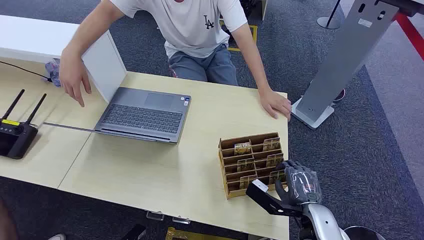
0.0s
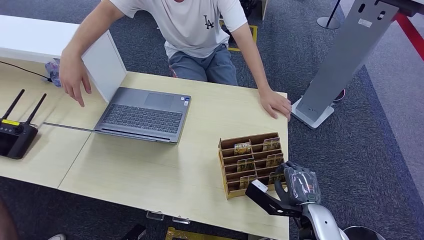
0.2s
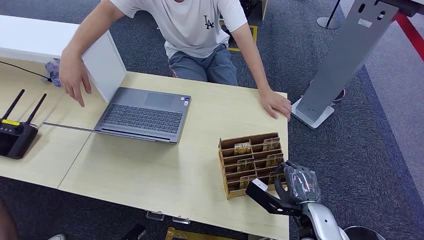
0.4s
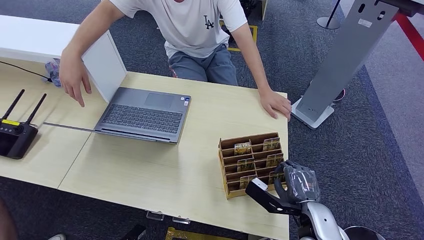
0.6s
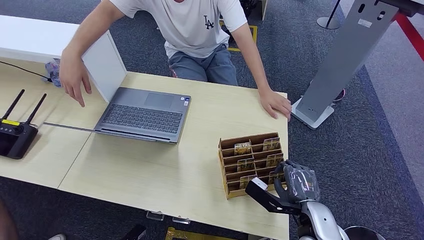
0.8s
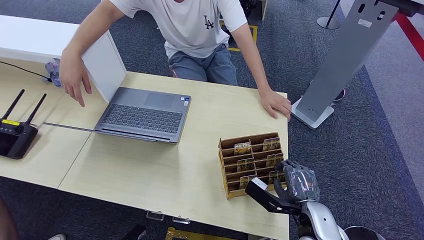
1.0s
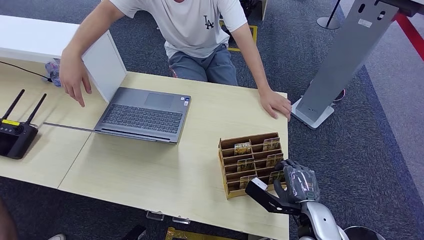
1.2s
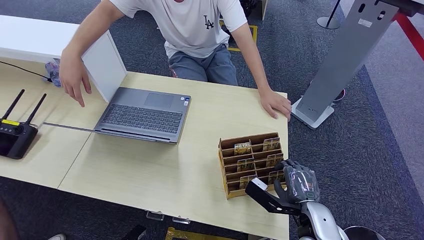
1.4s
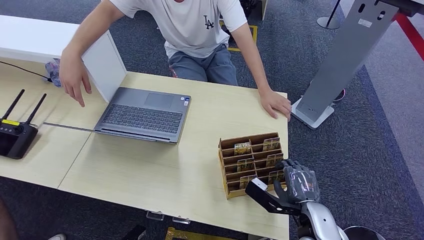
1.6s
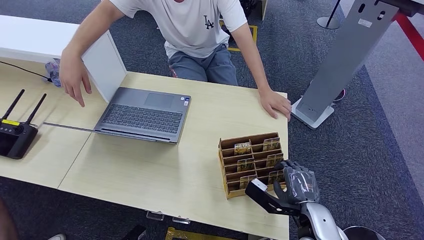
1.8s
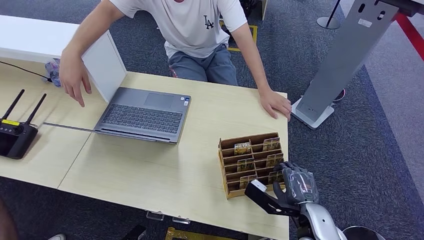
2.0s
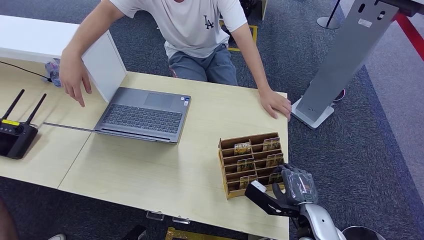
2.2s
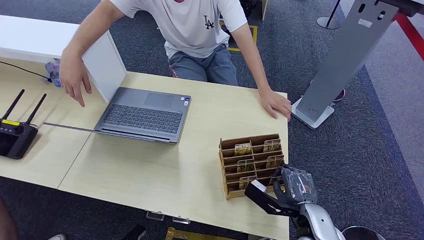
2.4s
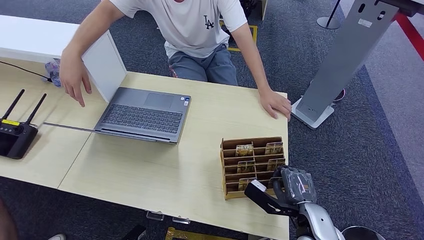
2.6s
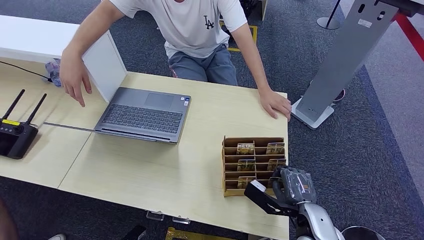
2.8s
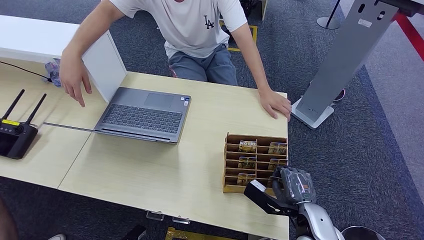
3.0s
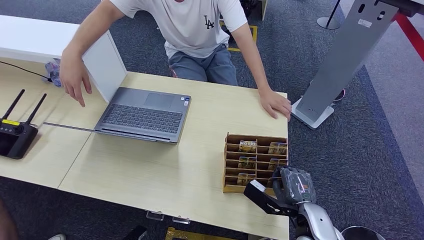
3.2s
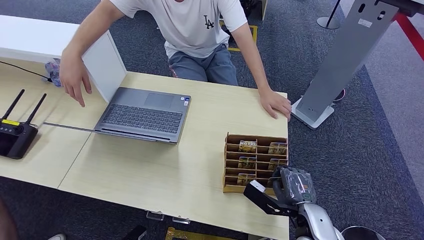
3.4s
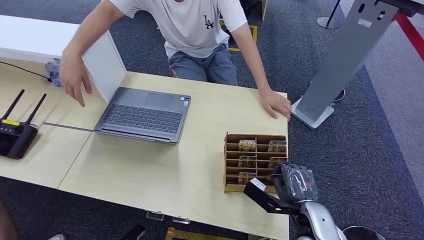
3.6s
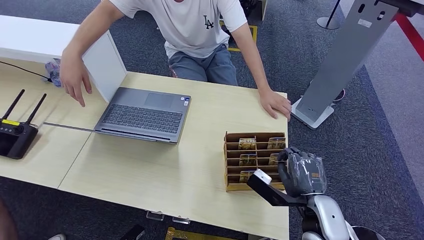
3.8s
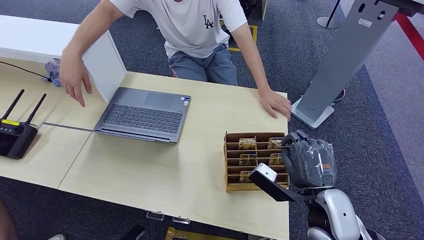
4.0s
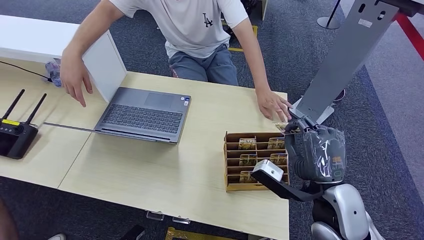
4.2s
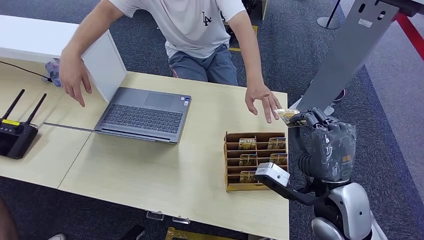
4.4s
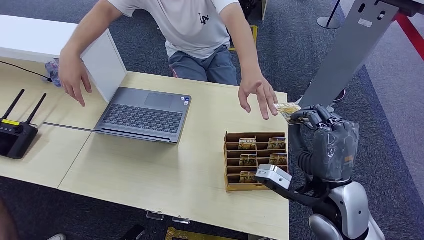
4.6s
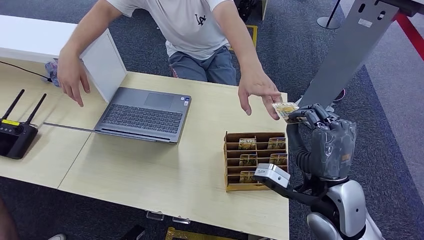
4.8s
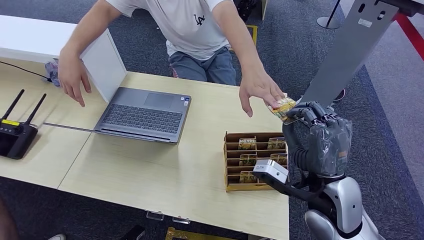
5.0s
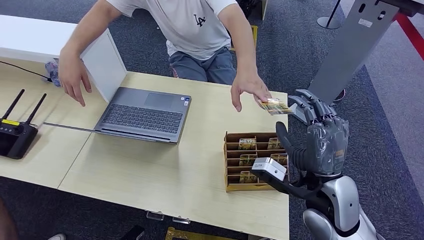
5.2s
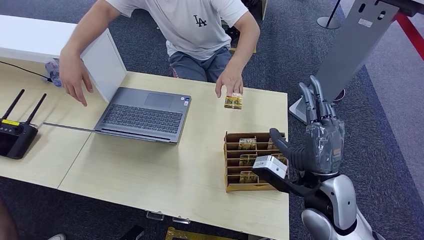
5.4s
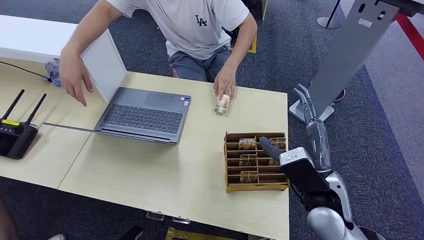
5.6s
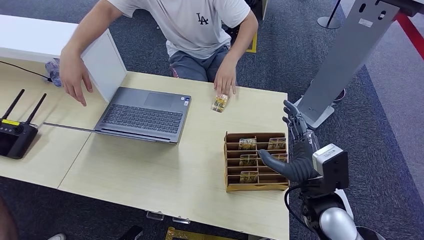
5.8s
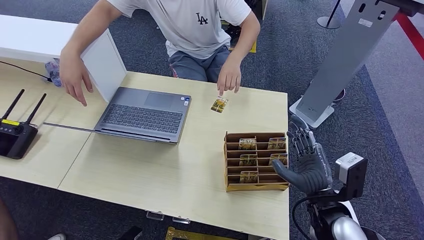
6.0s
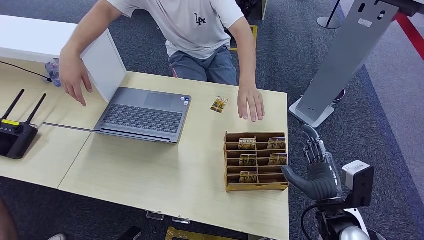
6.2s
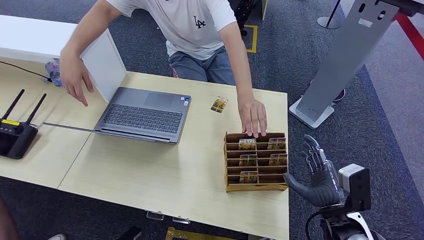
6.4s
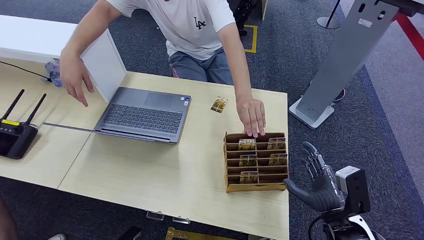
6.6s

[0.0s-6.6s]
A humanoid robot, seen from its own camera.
Step, 0.0s to 3.8s: Pick up the key card from the card box.
Step, 4.0s to 6.6s: Hand the key card to the target.
1.6s to 3.2s: Both hands stay put.
3.2s to 5.0s: The right hand is displaced upward by roughly 15 cm.
5.0s to 6.6s: The right hand moves downward and to the right, some 15 cm.
